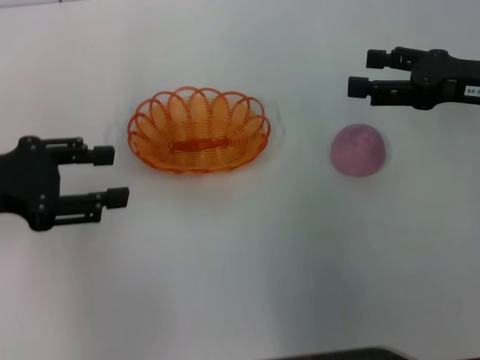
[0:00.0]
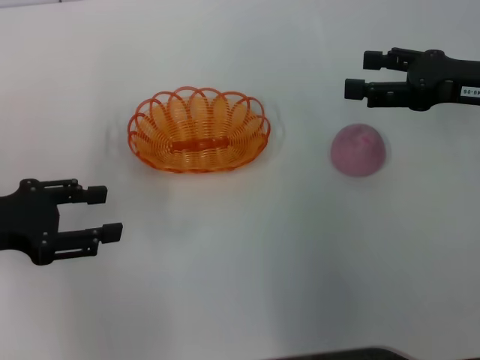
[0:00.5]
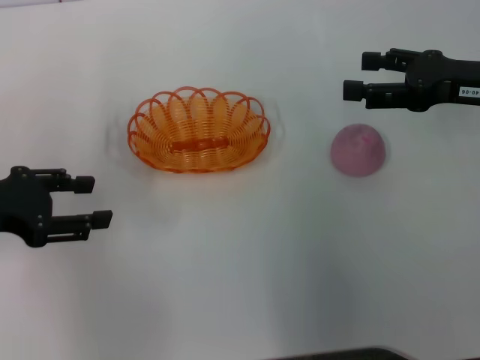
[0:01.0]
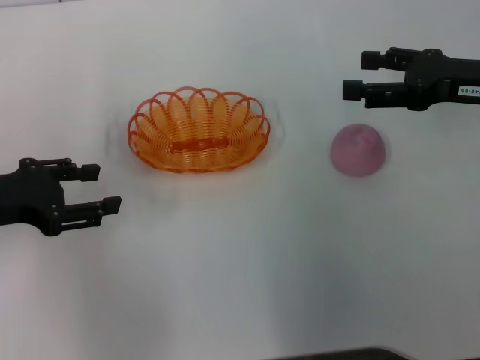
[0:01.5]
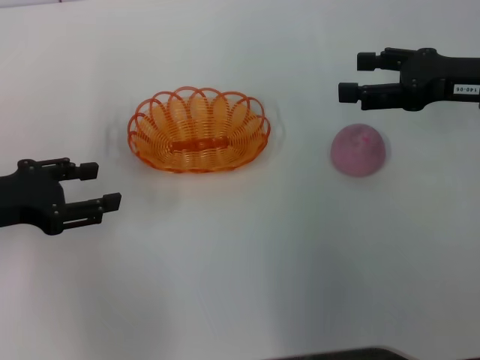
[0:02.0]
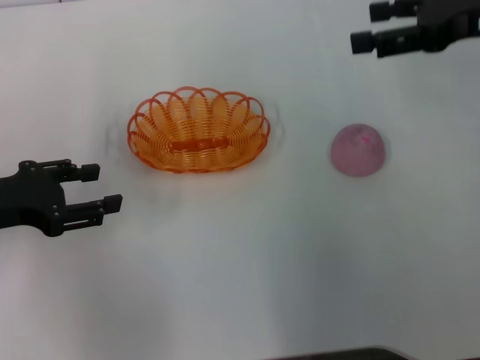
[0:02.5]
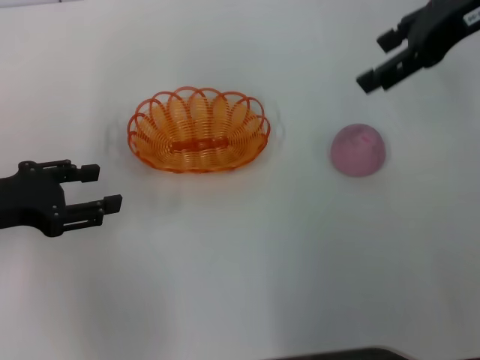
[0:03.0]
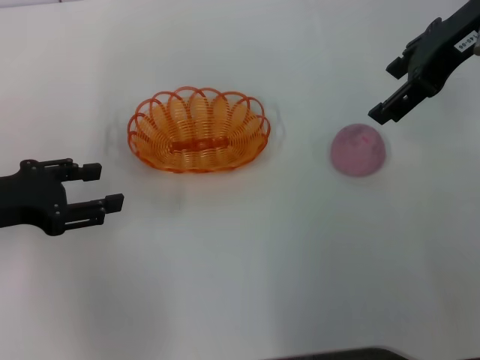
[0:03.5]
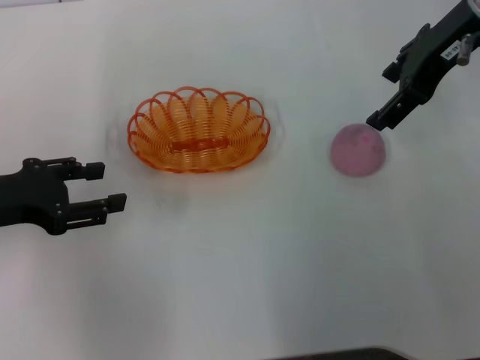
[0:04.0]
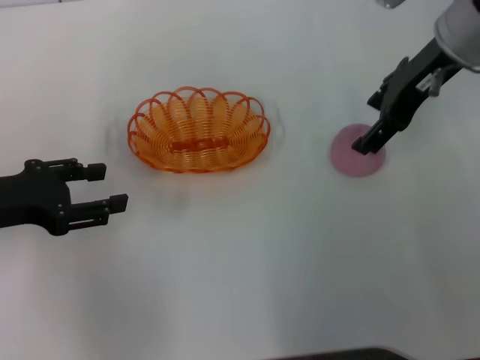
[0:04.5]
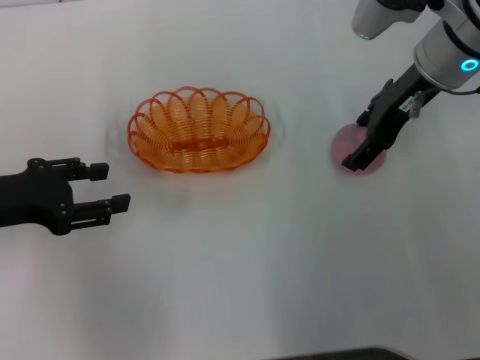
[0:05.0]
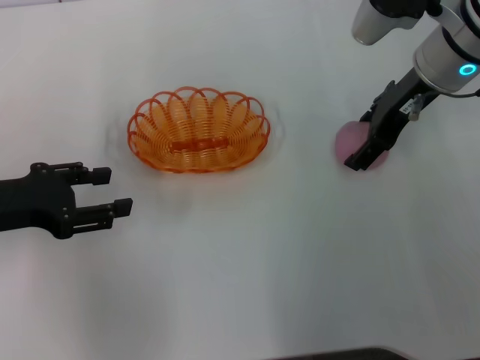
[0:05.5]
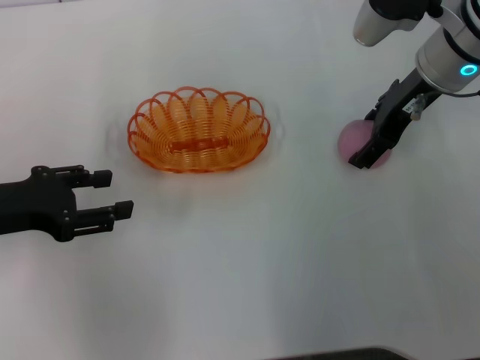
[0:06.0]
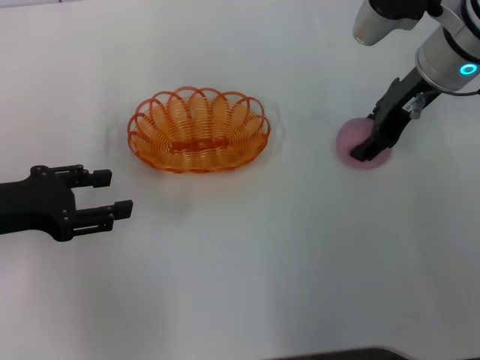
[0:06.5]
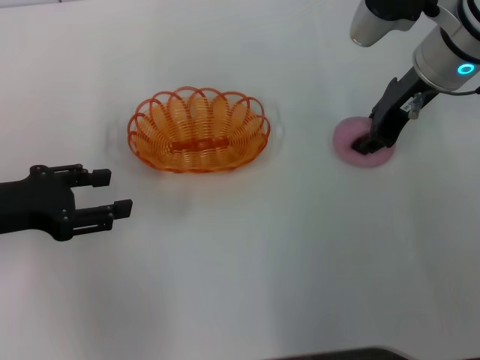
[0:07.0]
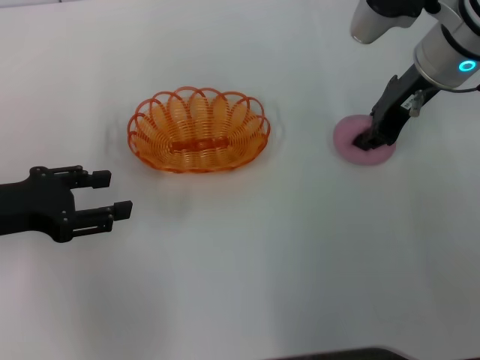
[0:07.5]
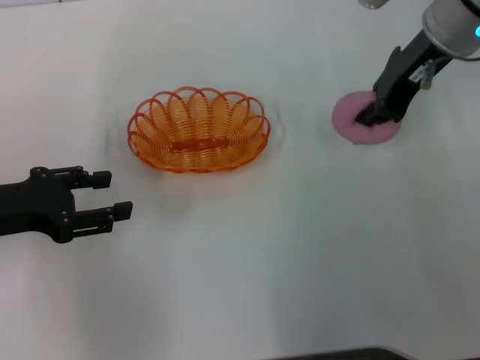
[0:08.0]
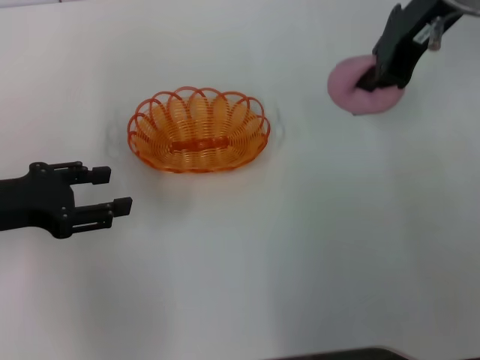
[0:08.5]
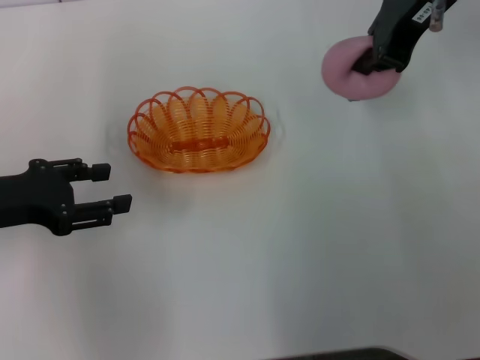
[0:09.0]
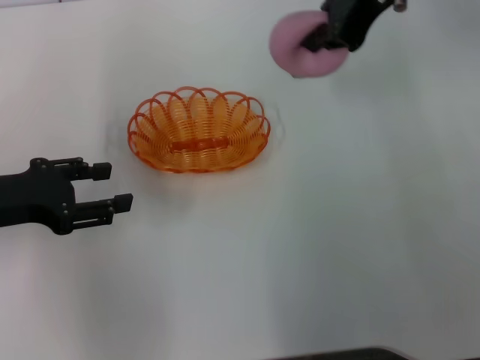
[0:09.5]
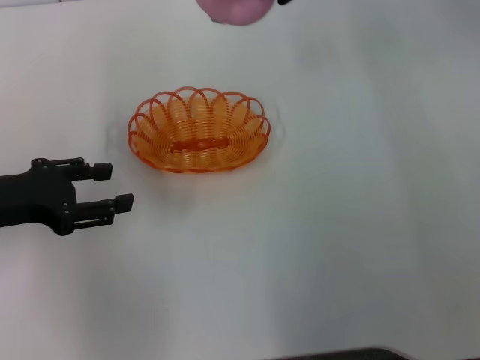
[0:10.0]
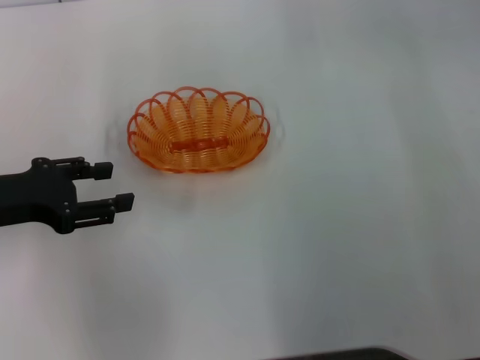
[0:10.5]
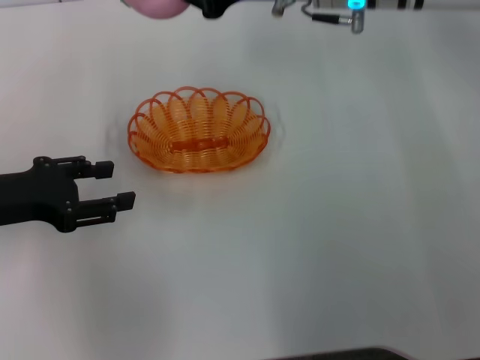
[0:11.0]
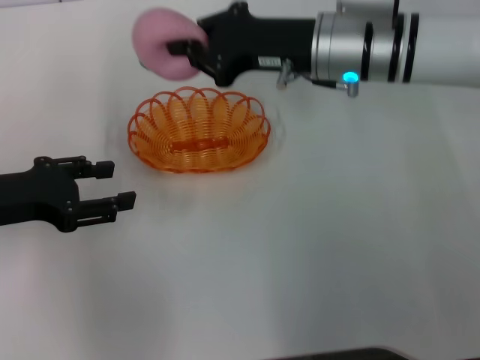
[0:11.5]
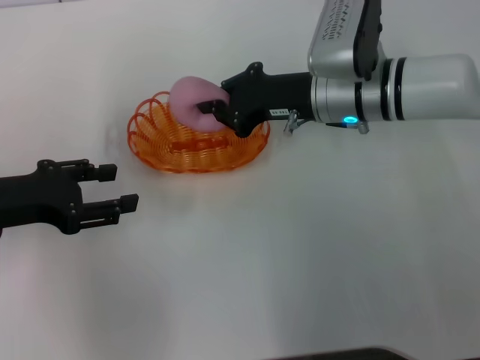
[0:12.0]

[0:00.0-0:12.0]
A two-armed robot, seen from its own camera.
Step, 0:00.0 to 0:08.5: Pick up the peach with the right gripper.
0:00.0 to 0:02.0: The grippers move only a little.
0:02.0 to 0:04.0: The right gripper heads upward, to the left and forward, covering some 15 cm.
0:04.0 to 0:06.0: The right gripper heads downward, covering about 10 cm.
0:06.0 to 0:08.0: The right gripper moves some 5 cm, and closes.
0:08.0 to 0:10.0: The right gripper moves upward and to the left, about 10 cm.
0:10.0 to 0:12.0: The right gripper shifts about 20 cm downward.

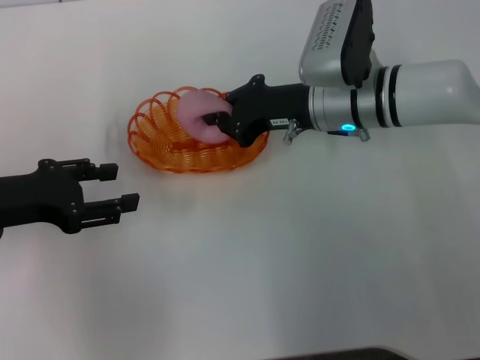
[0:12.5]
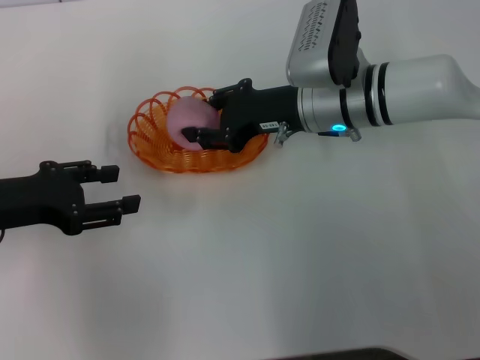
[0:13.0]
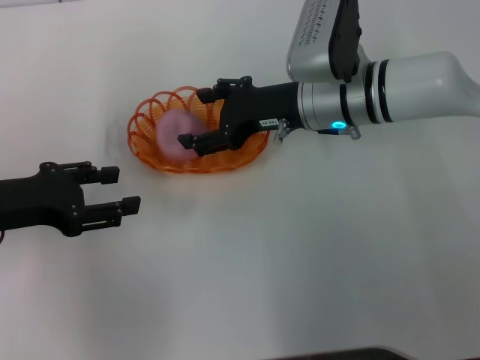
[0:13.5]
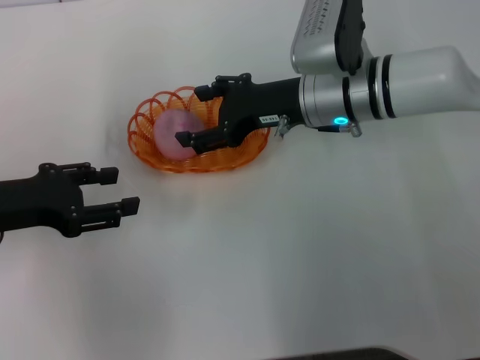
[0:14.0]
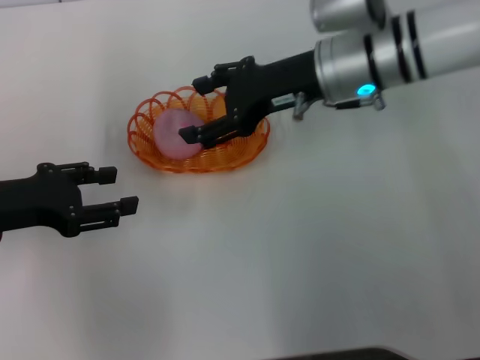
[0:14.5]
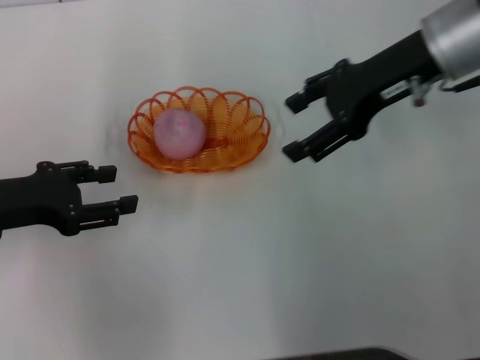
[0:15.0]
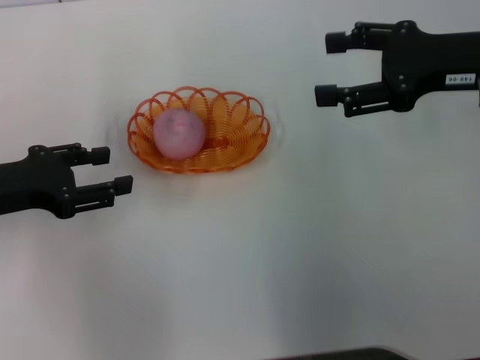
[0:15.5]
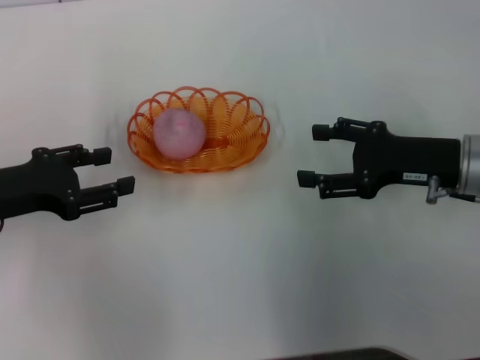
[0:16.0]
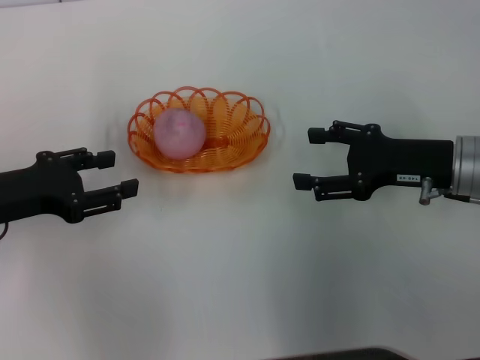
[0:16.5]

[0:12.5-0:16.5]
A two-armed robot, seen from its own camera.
Step, 0:12.5 to 0:14.5: Place the peach into the basket with the right gripper.
0:12.5 to 0:14.5: The right gripper is displaced upward by approximately 5 cm, and opens.
0:14.5 to 0:16.5: The right gripper travels to the right, backward and downward by roughly 15 cm.

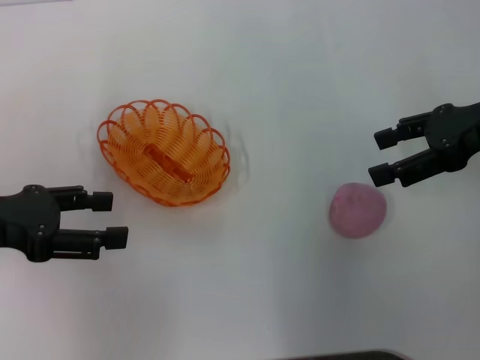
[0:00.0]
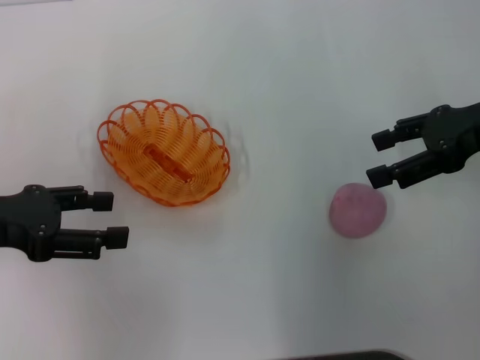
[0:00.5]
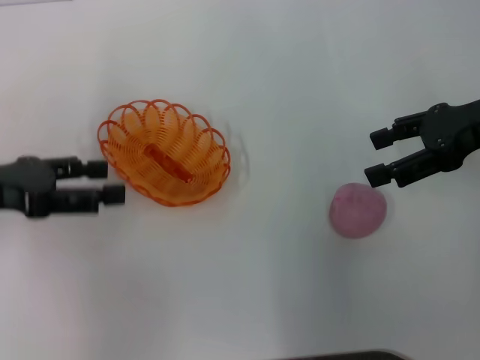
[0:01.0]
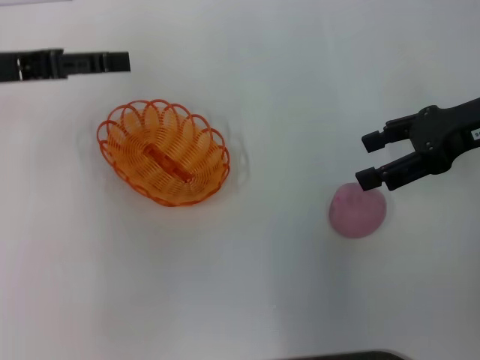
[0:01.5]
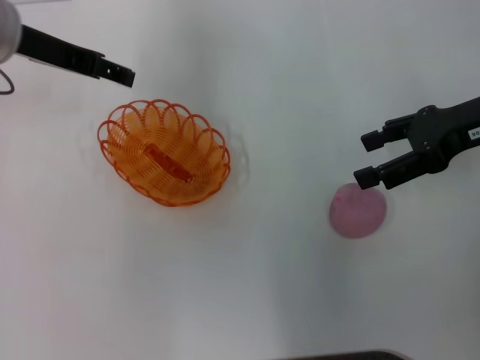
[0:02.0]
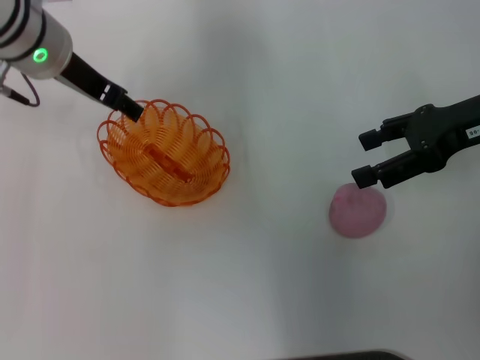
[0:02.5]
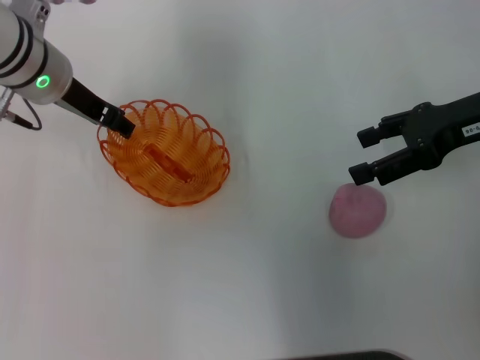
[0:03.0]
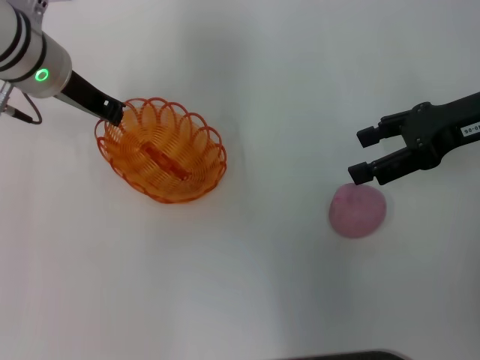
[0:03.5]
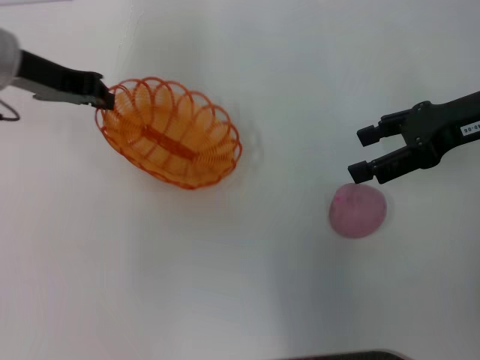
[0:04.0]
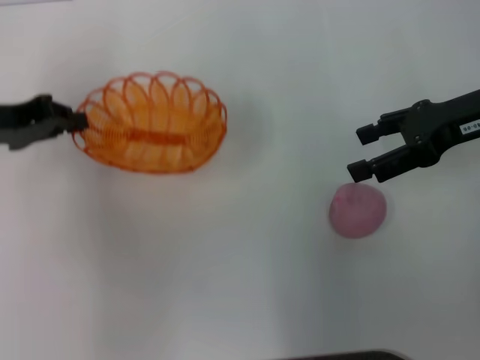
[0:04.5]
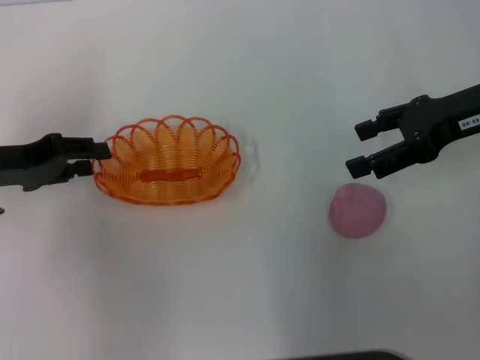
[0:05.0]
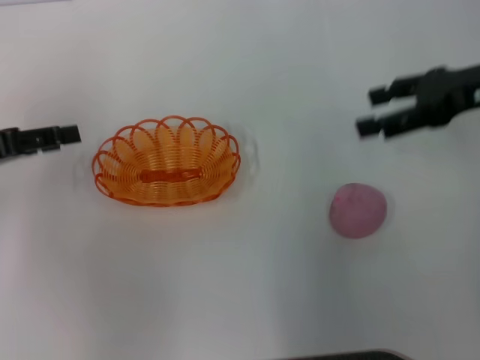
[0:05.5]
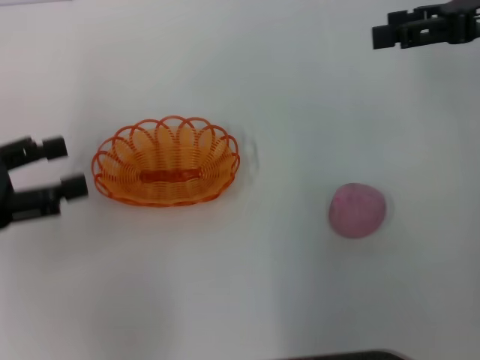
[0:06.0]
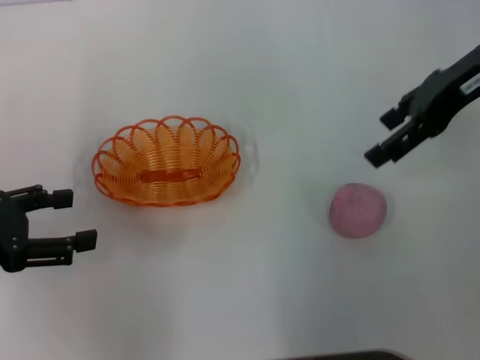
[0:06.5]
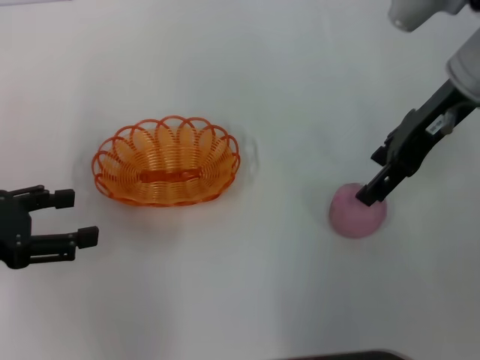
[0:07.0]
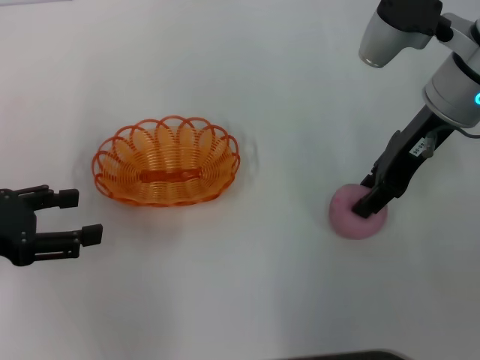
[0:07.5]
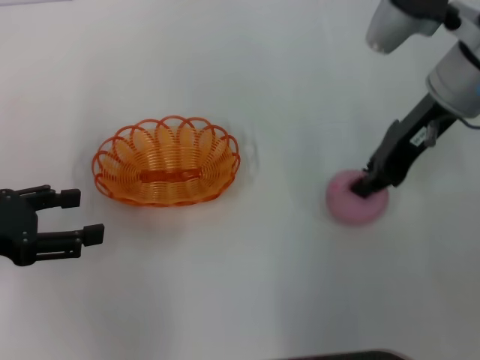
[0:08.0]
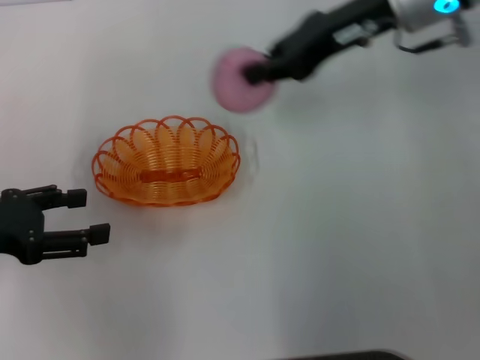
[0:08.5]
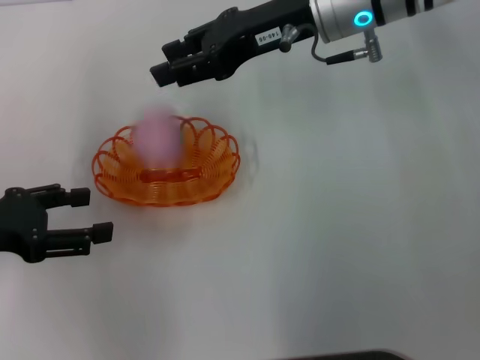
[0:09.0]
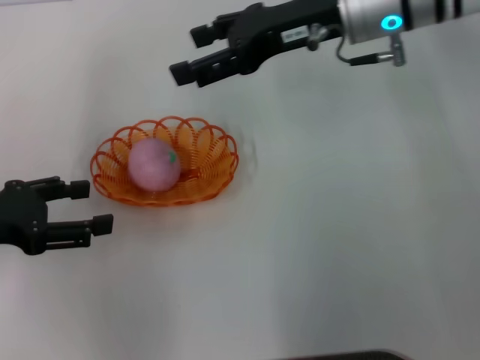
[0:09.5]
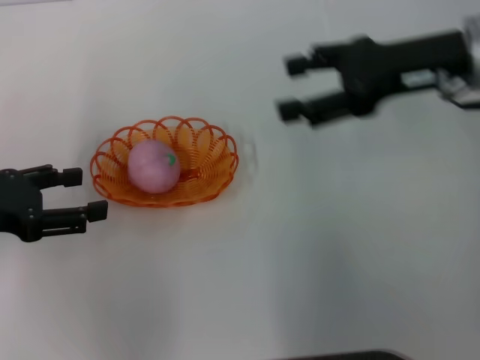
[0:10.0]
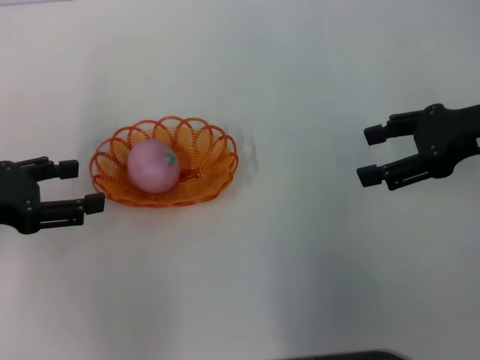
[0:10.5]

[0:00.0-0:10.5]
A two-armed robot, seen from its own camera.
Step, 0:00.0 to 0:03.5: Pick up the basket with the left gripper.
Step, 0:04.5 to 0:05.5: Place the basket in the center of view with the left gripper.
Step, 0:06.0 to 0:08.0: Pick up the peach with the right gripper.
Step, 0:08.5 to 0:09.5: Place the peach into the basket with the right gripper.
0:00.0 to 0:02.0: The left gripper heads forward, to the right and upward, covering approximately 20 cm.
0:02.0 to 0:04.0: The left gripper closes up.
0:04.0 to 0:06.5: The right gripper moves upward, roughly 5 cm. Meanwhile the left gripper goes about 20 cm backward and to the left, and opens.
0:06.5 to 0:08.5: The right gripper shifts approximately 10 cm to the left, and closes its fingers.
0:08.5 to 0:10.5: The right gripper heads to the right, backward and downward, covering roughly 15 cm, and opens.
